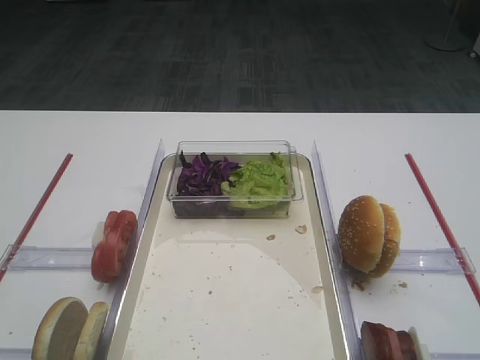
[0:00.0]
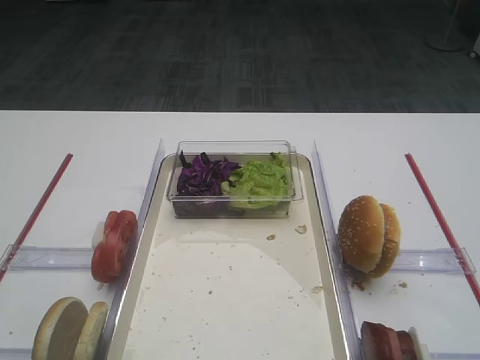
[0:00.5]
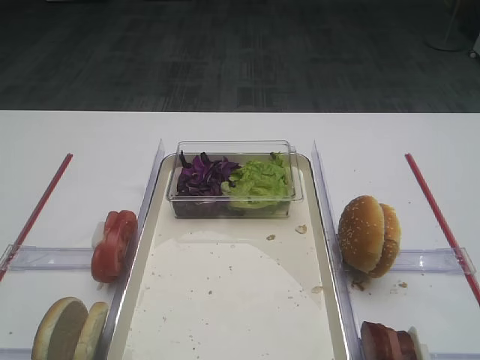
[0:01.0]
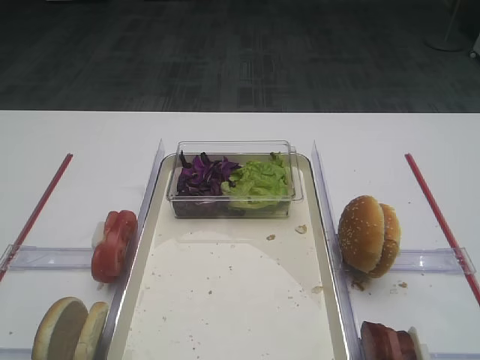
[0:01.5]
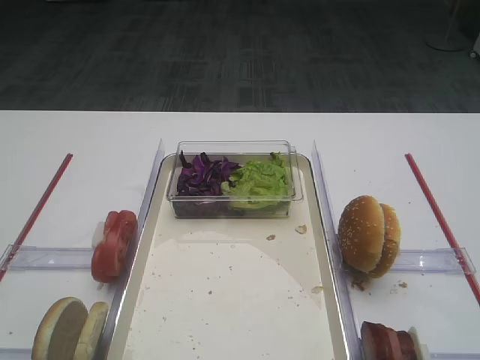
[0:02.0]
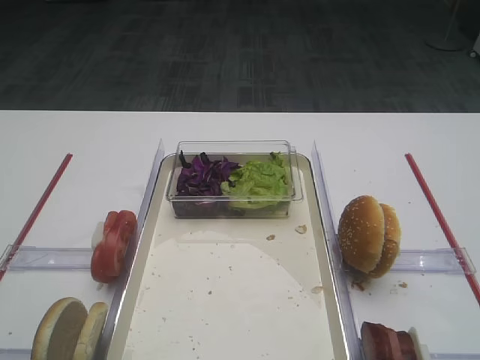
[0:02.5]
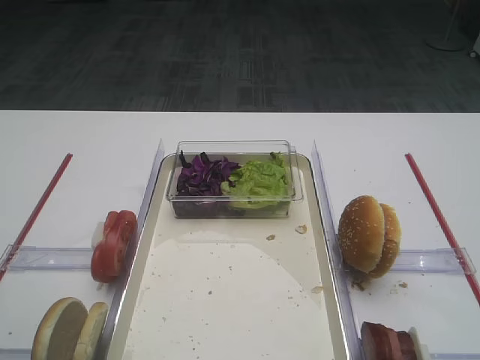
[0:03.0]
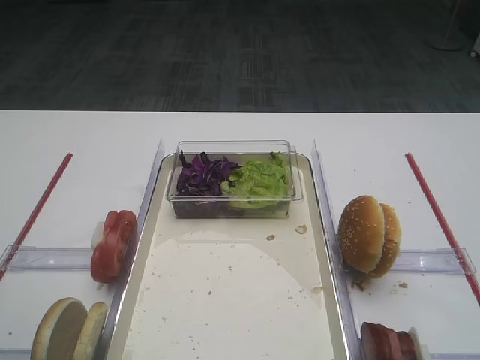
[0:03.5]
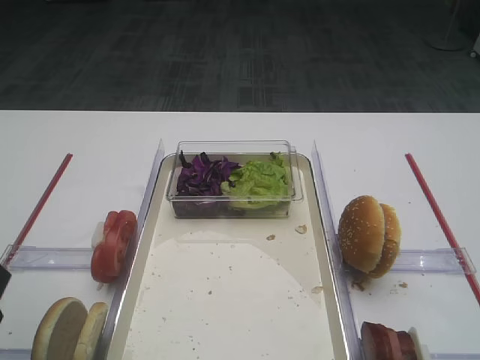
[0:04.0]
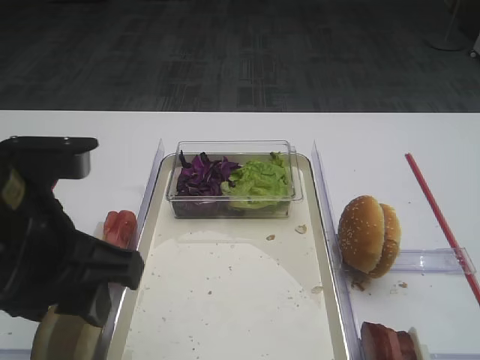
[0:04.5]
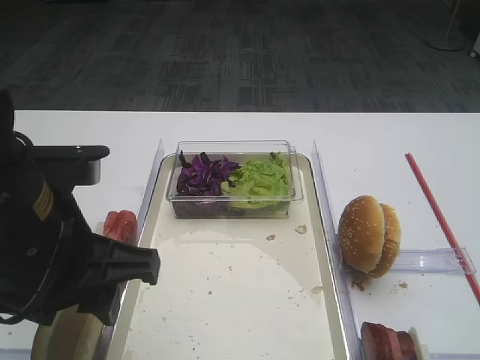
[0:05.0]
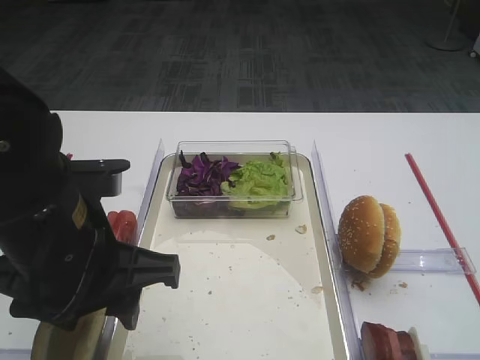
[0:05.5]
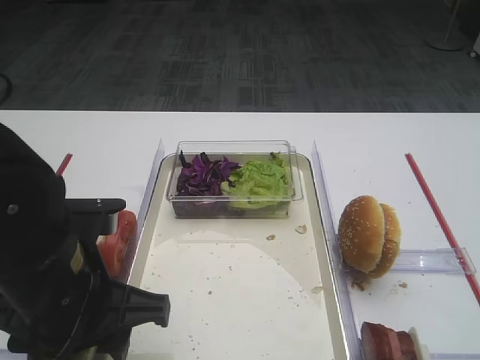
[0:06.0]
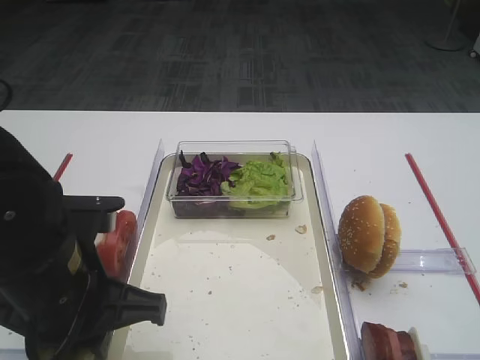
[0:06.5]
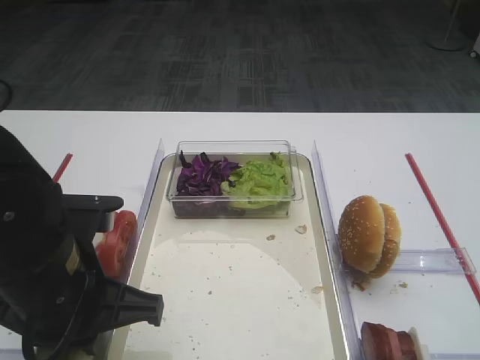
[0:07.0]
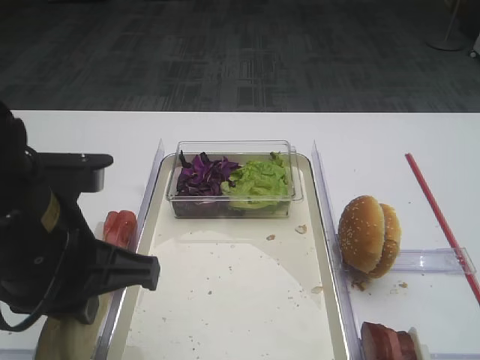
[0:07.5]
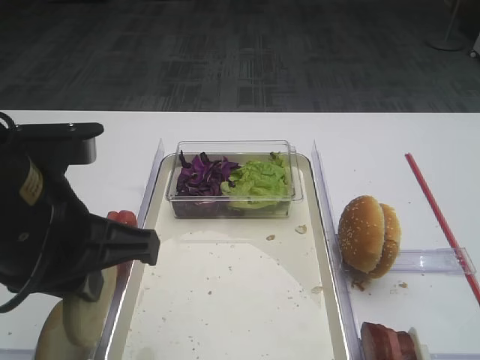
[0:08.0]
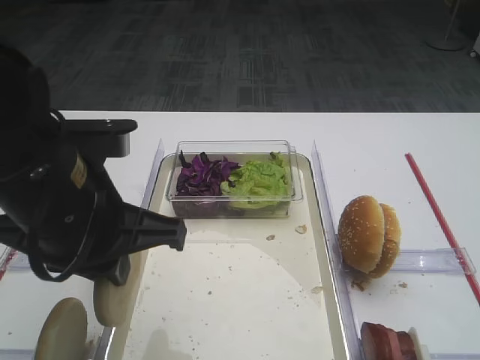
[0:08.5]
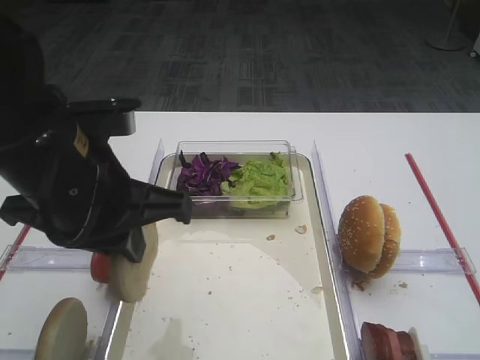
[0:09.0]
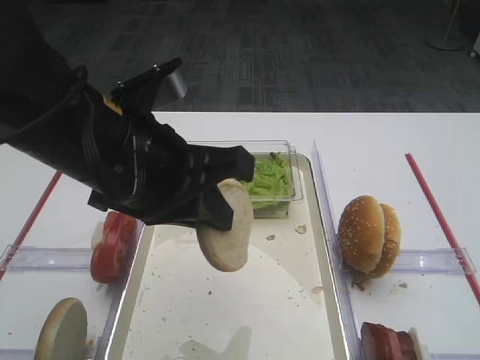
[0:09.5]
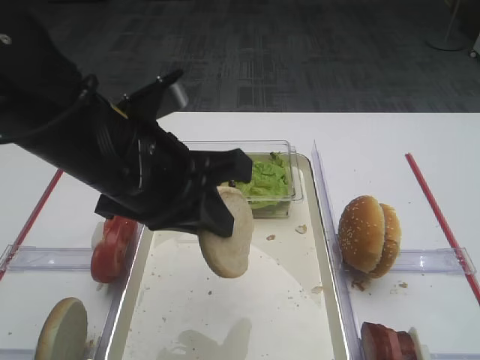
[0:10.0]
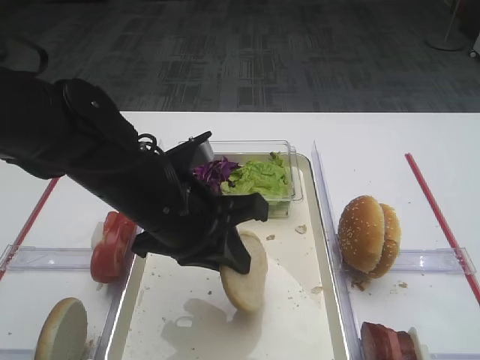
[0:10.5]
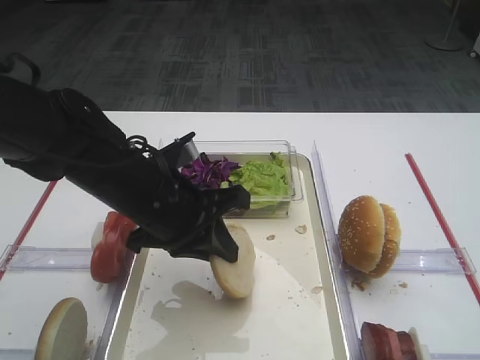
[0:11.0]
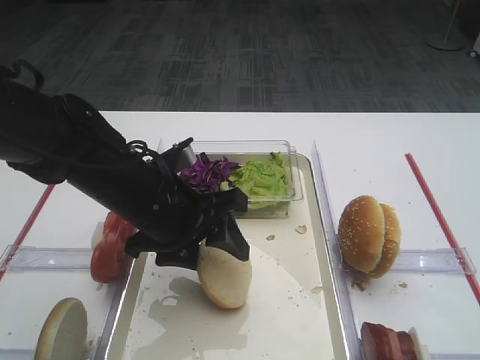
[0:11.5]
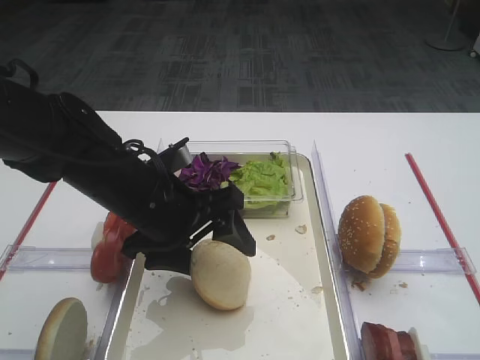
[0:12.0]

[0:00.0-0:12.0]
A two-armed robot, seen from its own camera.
Step, 0:00.0 to 0:07.0: Pick up the bread slice with the left gripper.
0:04.0 to 0:06.0: The left gripper travels to the right and downward by about 10 cm.
0:06.0 to 0:08.0: The left gripper is displaced upward by roughly 5 cm, and closes up.
0:08.0 to 0:10.0: The left gripper is displaced to the right and forward by about 5 cm.
0:10.0 to 0:12.0: The left gripper heads downward and forward, covering some 10 cm, and opens.

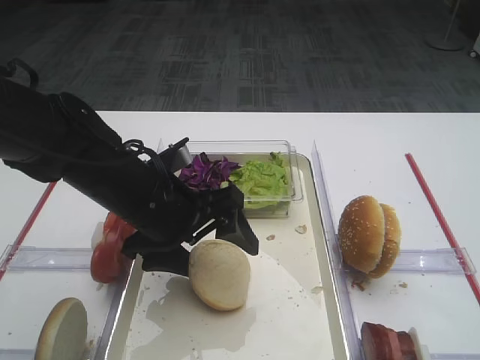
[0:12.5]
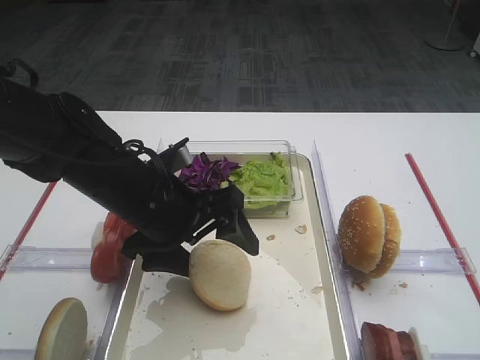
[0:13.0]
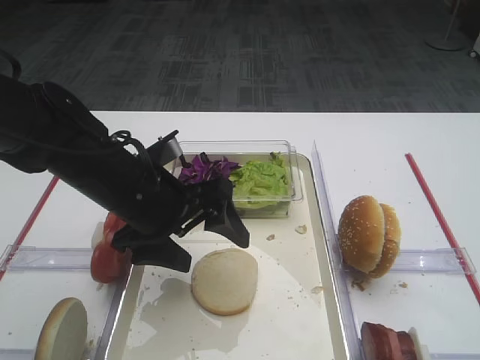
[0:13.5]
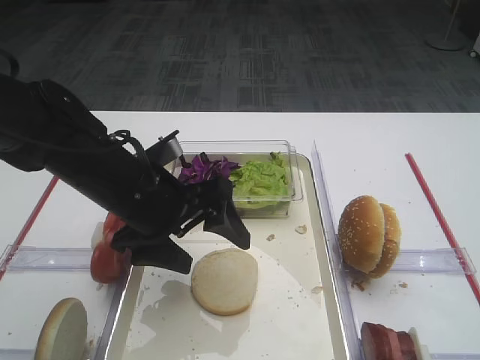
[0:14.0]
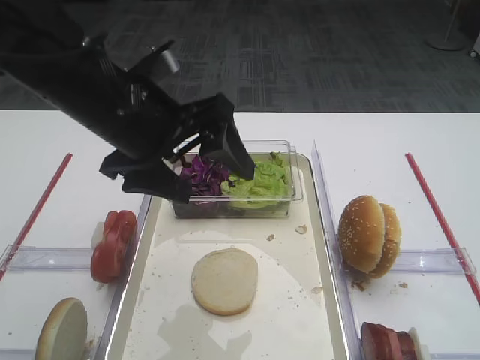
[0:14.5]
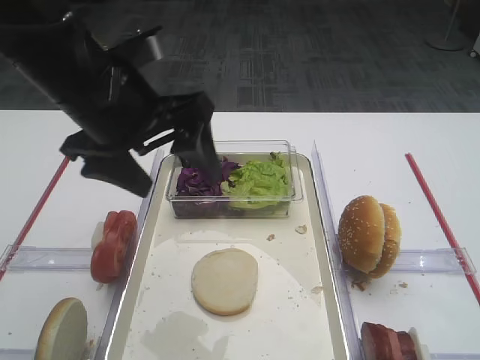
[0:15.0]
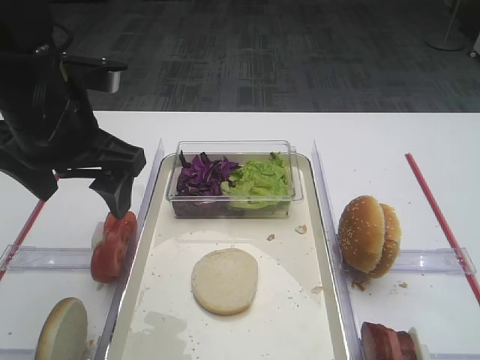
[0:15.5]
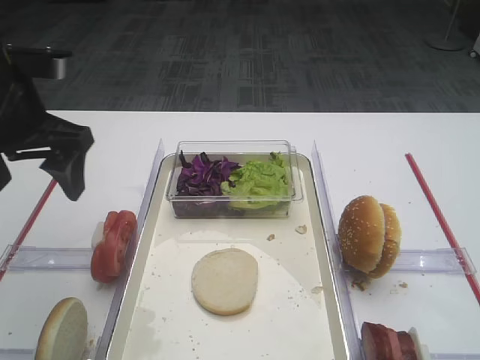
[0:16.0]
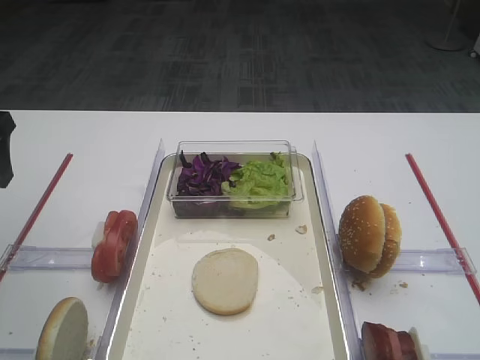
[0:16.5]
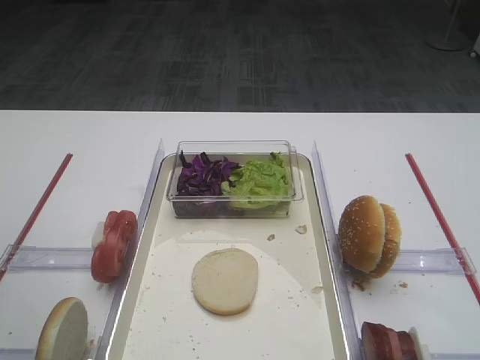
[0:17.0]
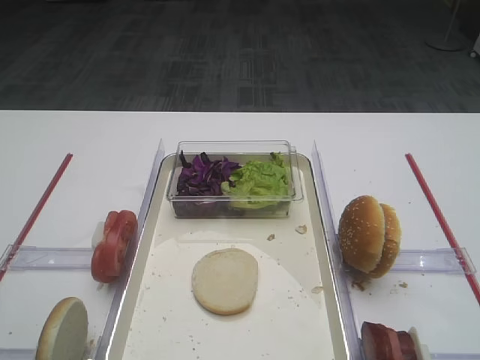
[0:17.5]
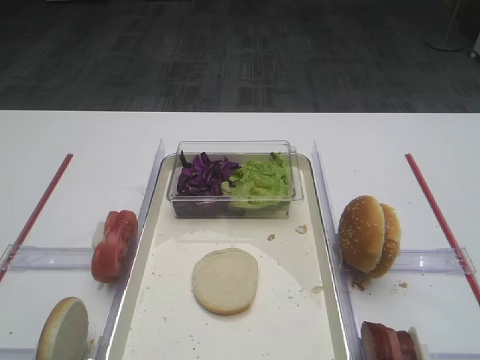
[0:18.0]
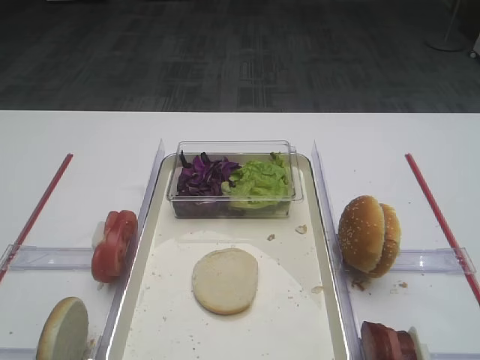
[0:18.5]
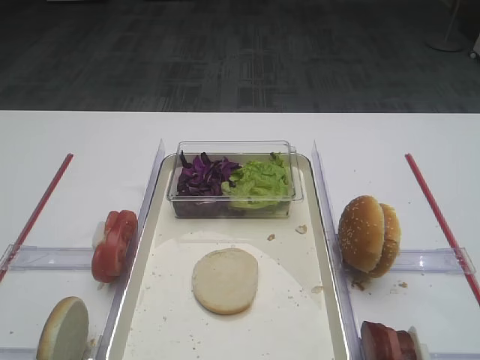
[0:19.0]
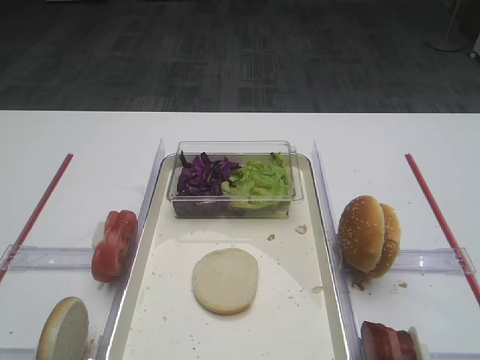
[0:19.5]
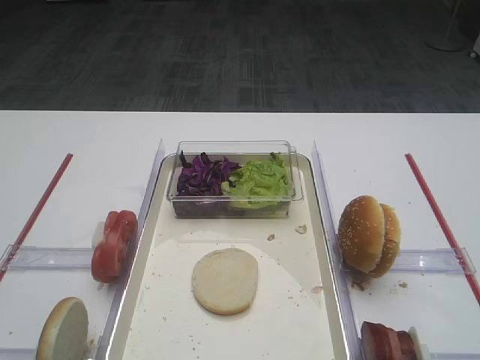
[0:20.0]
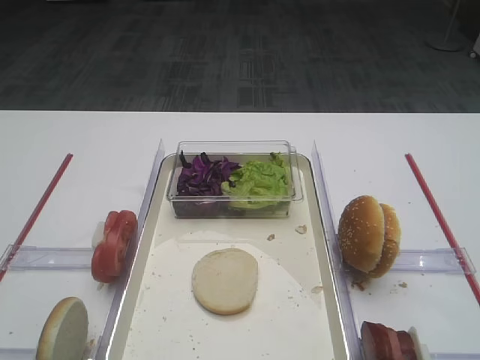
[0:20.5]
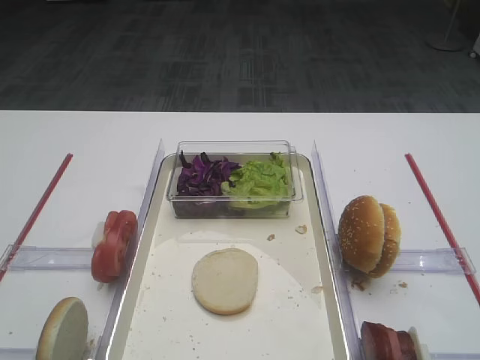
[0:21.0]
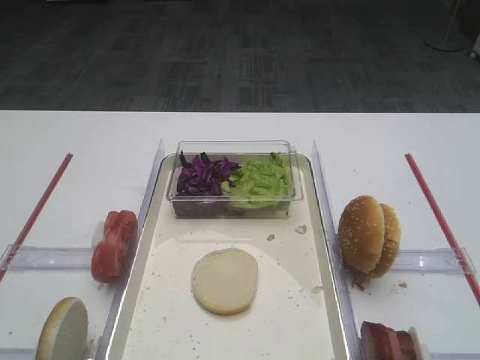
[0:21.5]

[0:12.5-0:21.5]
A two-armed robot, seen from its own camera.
0:12.5 to 0:14.5: The left gripper moves upward, approximately 10 cm.
0:14.5 to 0:17.0: The left gripper travels to the left by some 20 cm.
0:19.5 to 0:21.5: Both grippers stay about where they are.

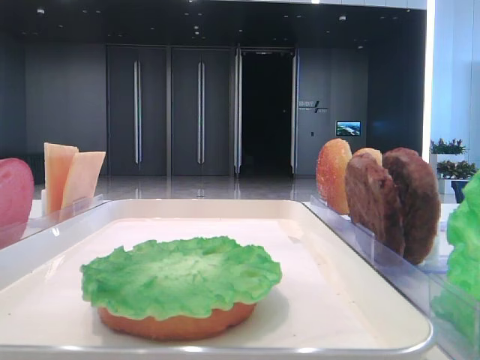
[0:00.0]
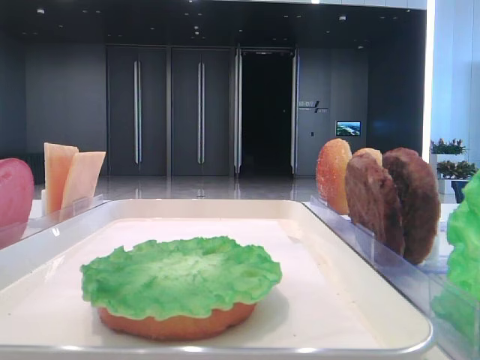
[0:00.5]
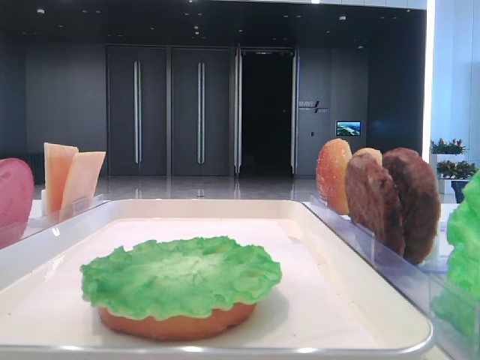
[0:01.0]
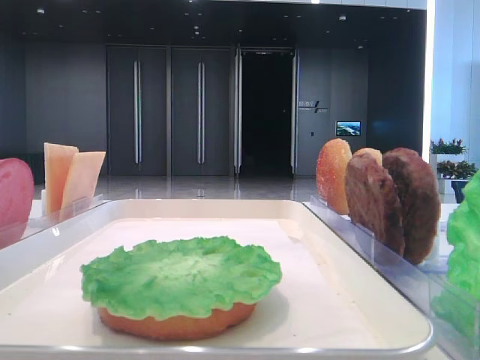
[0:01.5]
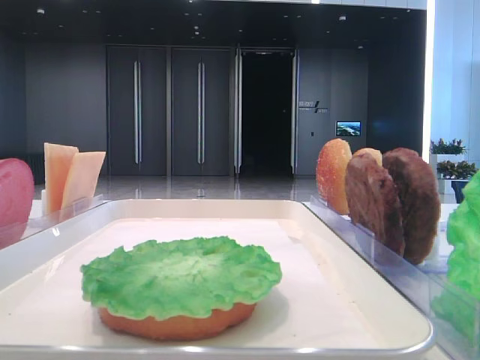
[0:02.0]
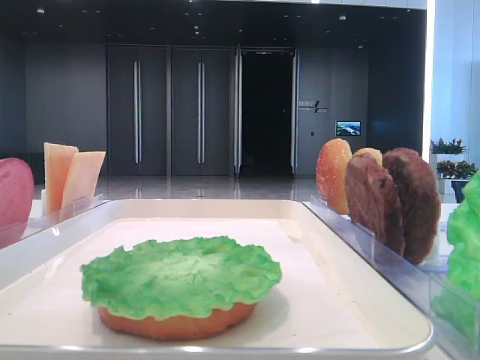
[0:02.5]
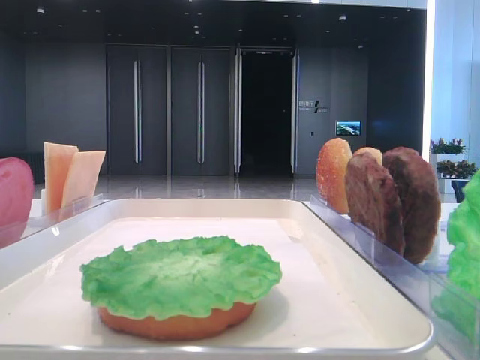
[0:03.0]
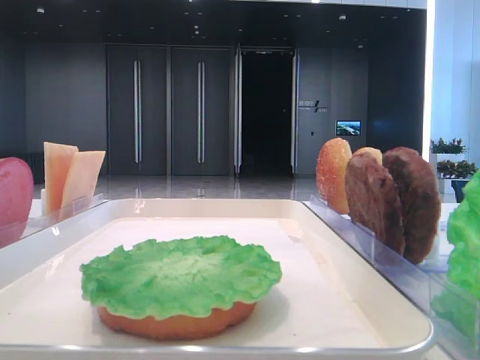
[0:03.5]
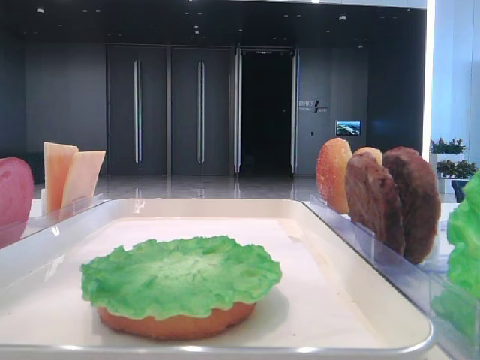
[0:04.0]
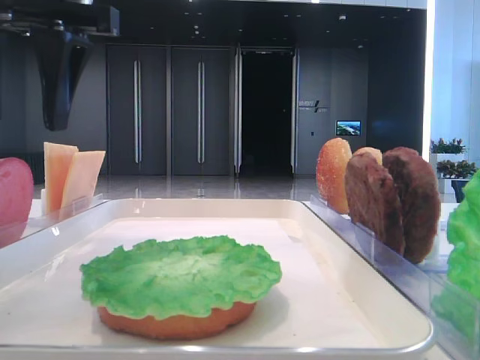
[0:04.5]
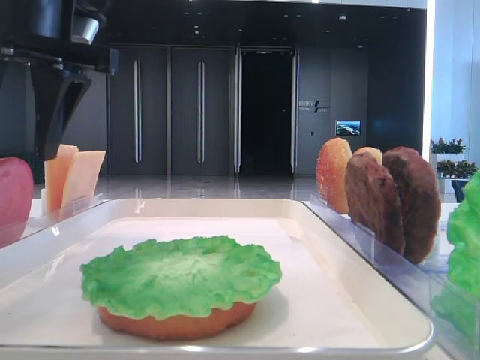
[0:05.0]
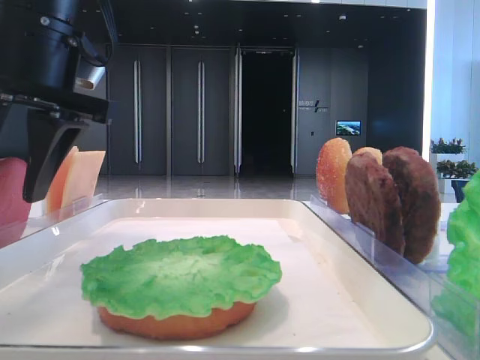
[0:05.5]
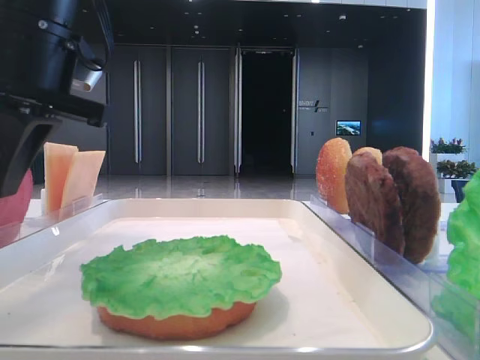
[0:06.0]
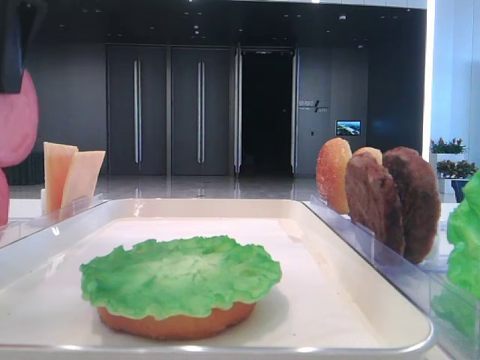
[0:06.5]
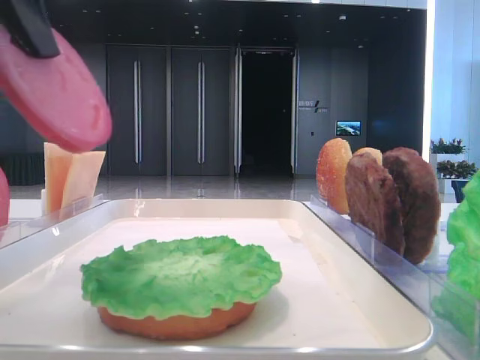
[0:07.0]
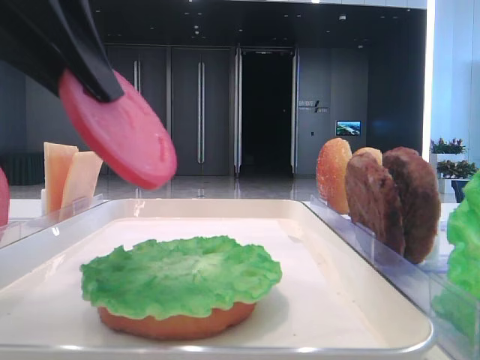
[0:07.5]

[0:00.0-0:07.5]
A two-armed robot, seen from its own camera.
Step, 0:00.0 to 0:05.5: Pick up the tomato slice with the left hand.
0:02.0 to 0:04.0: The left gripper travels forward by about 30 cm.
0:04.0 to 0:05.5: The left gripper moves to the right and downward, approximately 10 cm.
0:05.5 to 0:07.5: The left gripper heads backward, covering some 10 cm, and closes up.
